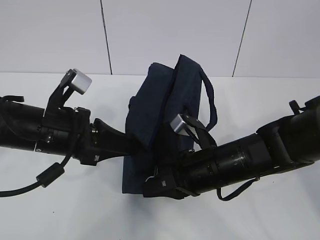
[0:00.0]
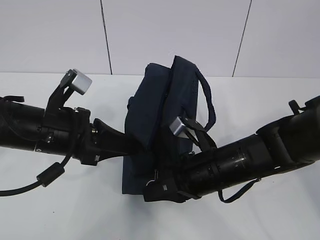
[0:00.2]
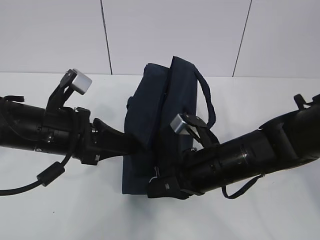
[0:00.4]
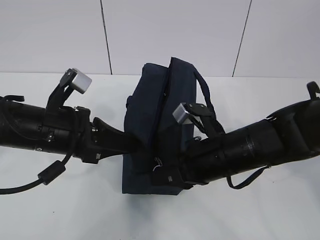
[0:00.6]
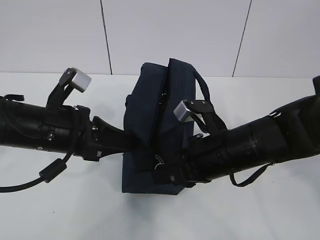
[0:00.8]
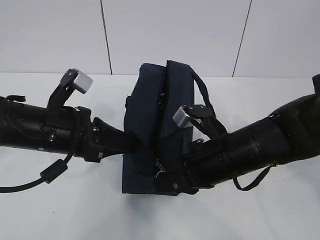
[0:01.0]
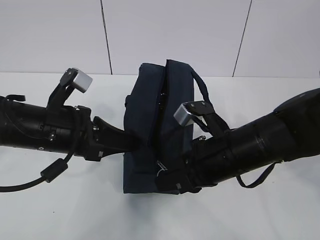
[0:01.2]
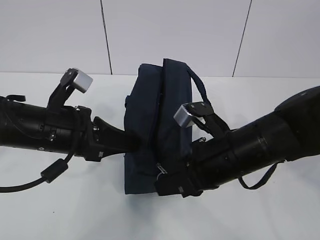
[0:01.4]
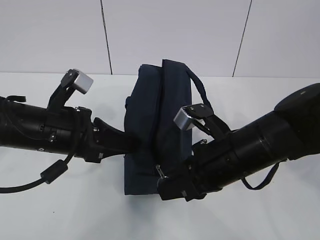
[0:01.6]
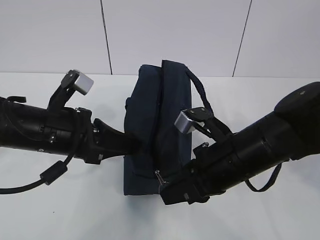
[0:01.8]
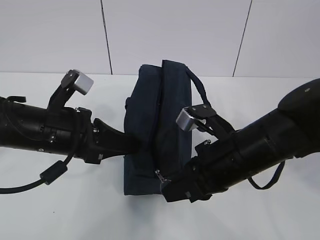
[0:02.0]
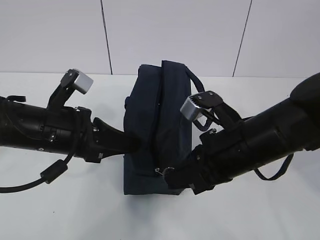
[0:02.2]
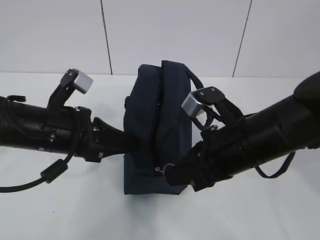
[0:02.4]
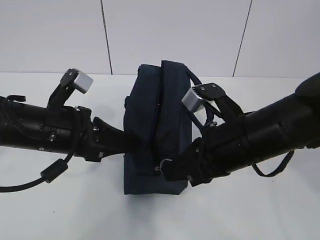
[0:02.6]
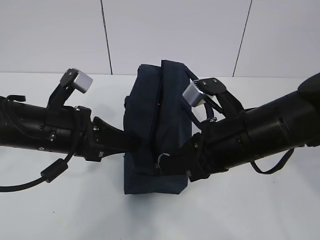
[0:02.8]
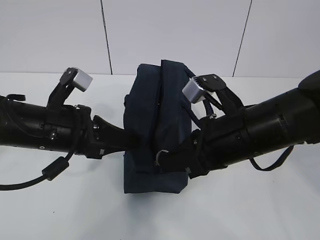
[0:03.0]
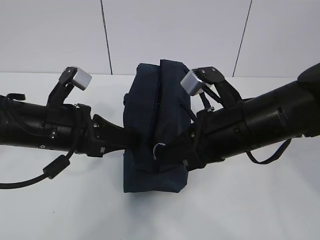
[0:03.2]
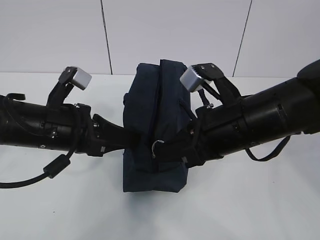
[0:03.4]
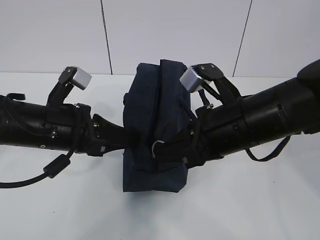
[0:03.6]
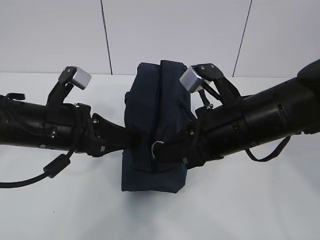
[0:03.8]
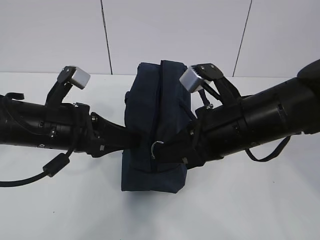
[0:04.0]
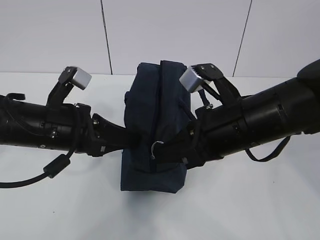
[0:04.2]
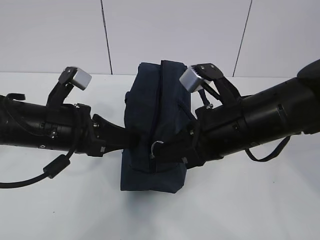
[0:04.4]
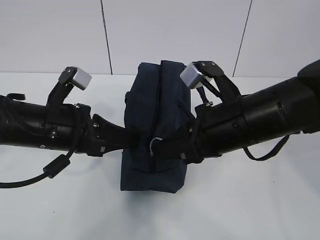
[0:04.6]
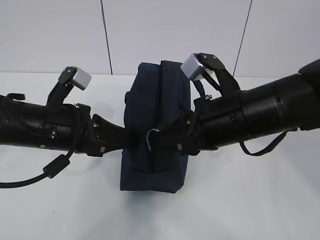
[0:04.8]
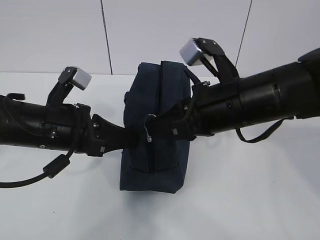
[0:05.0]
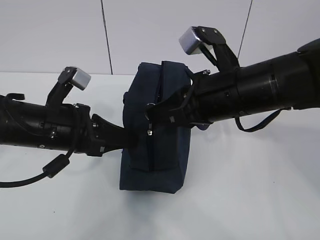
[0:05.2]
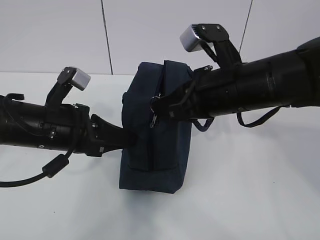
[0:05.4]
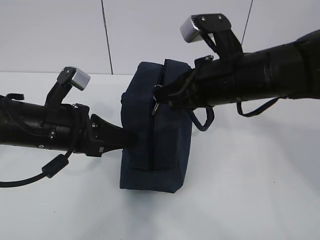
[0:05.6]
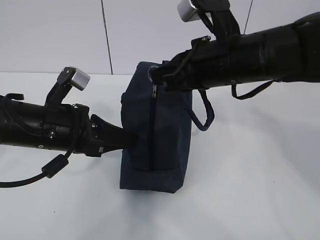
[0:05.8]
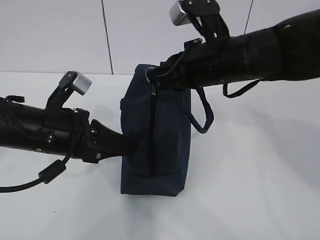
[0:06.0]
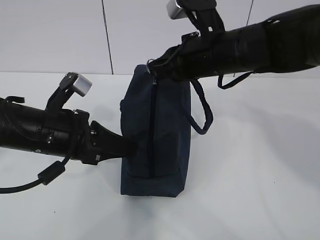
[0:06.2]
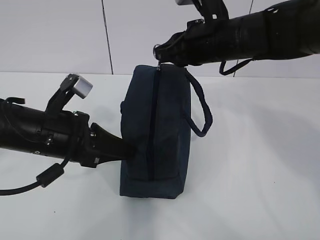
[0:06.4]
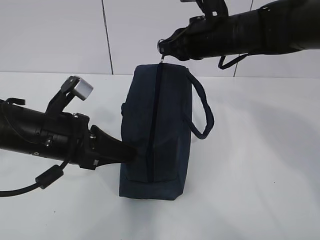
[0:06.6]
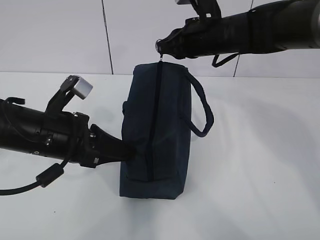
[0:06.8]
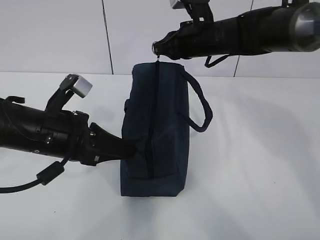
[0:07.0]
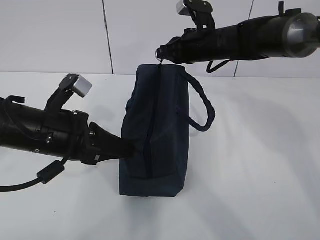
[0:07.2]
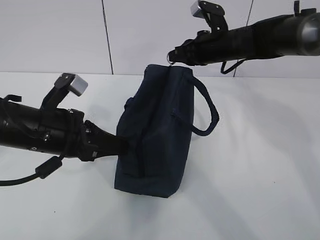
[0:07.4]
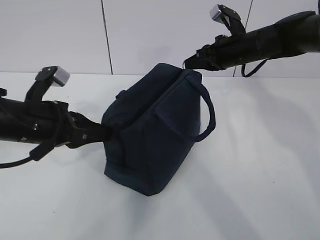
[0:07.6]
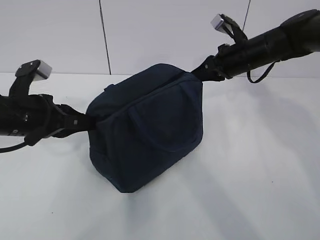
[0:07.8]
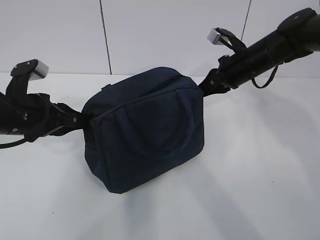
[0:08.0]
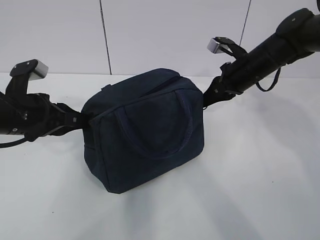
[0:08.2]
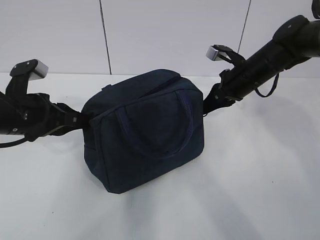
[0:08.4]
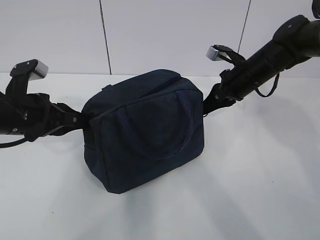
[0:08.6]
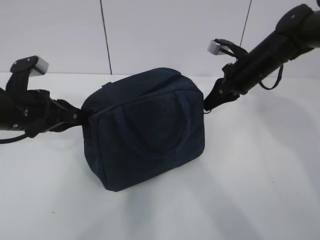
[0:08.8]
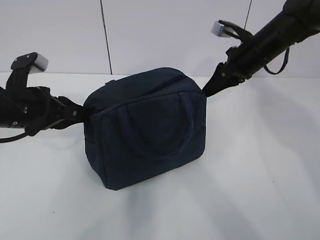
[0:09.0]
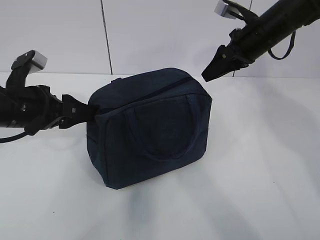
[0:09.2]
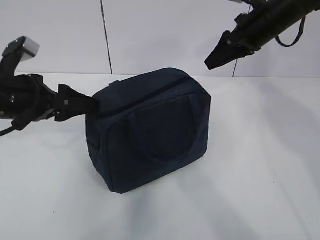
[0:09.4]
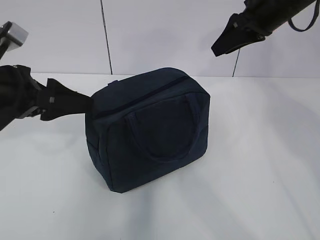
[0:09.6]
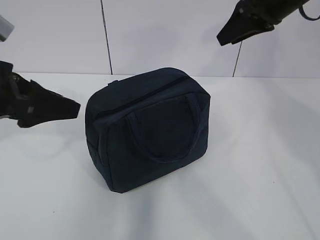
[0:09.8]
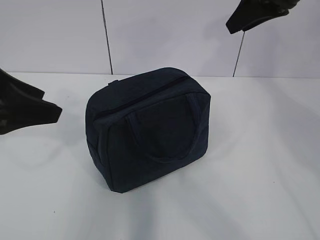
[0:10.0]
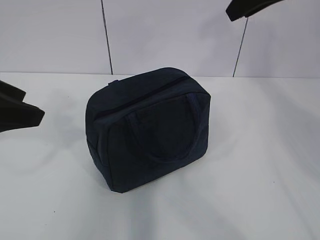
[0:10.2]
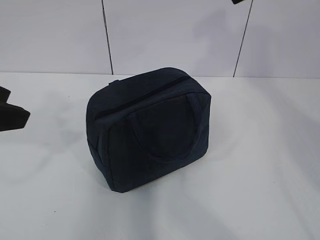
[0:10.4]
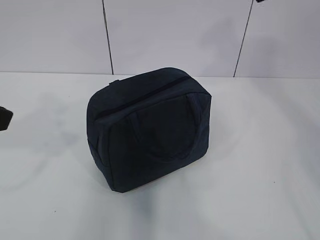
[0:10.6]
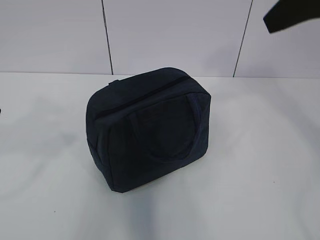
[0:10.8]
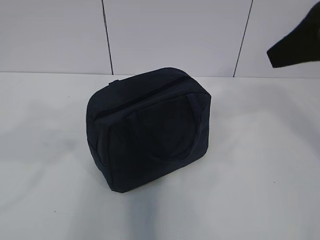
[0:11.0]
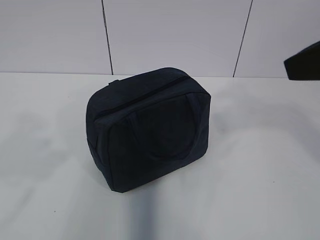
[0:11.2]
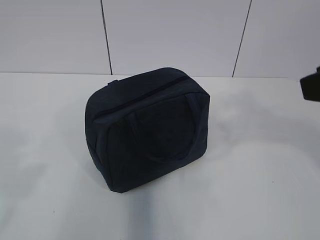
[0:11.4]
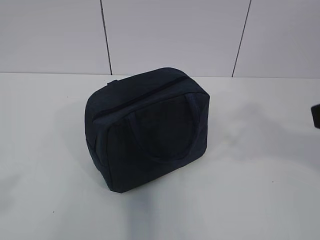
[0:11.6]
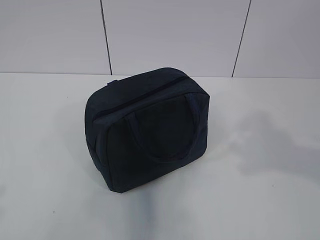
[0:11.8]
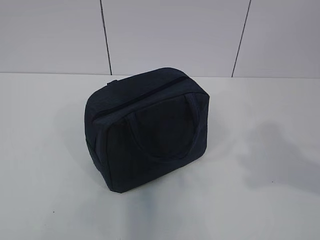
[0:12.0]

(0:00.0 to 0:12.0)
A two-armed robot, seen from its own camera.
Step, 0:00.0 - 0:09.8: zip up the zipper to close the bag.
0:00.0 - 0:01.6: The right gripper moves some 5 cm.
0:01.6 - 0:03.0: There are only small adjustments of the grippers.
0:03.0 - 0:04.4: The left gripper opens, then closes once more.
0:04.4 - 0:06.0: The right gripper shifts approximately 5 cm forward.
0:06.0 - 0:07.6: The right gripper moves forward and to the right, some 20 cm.
0:07.6 - 0:09.0: The right gripper opens its fingers.
0:09.0 - 0:10.4: The grippers both shift upward and backward by roughly 20 cm. The left gripper opens its fingers.
0:10.4 - 0:12.0: The right gripper heads backward and downward, covering roughly 25 cm. The left gripper moves backward, some 20 cm.

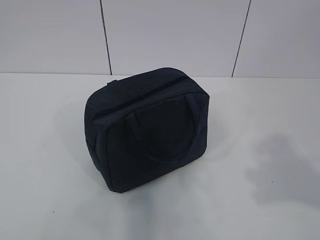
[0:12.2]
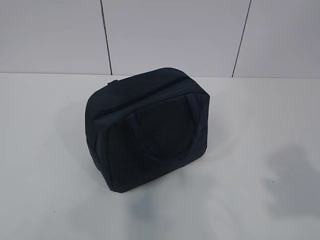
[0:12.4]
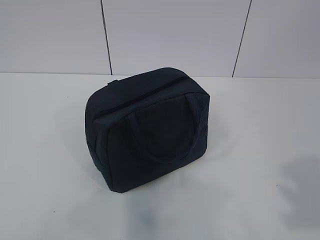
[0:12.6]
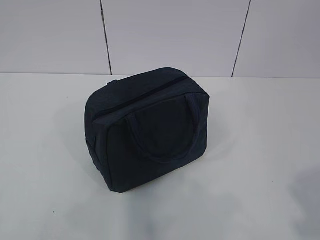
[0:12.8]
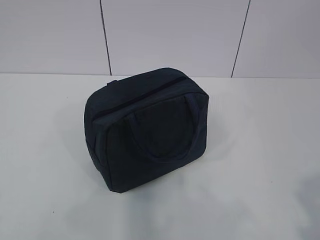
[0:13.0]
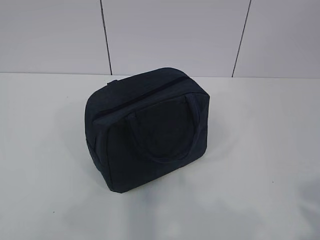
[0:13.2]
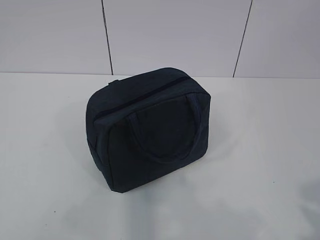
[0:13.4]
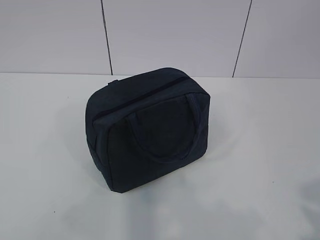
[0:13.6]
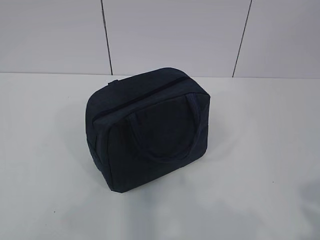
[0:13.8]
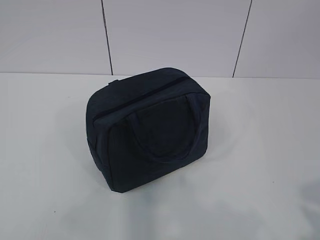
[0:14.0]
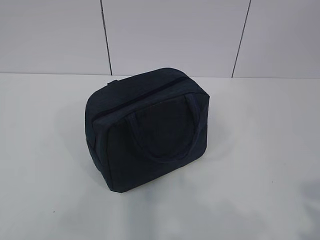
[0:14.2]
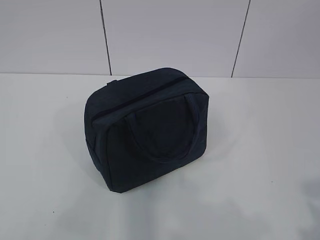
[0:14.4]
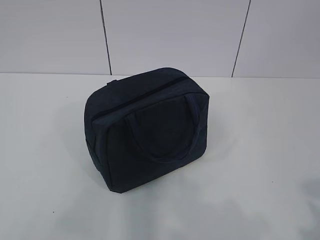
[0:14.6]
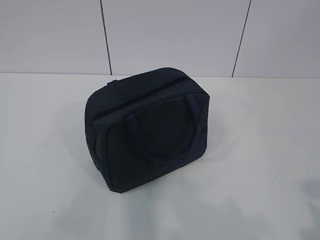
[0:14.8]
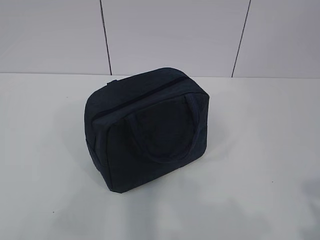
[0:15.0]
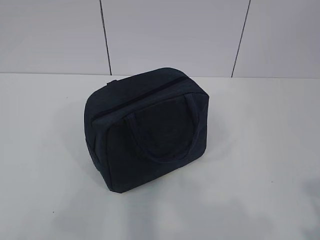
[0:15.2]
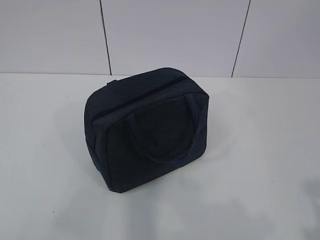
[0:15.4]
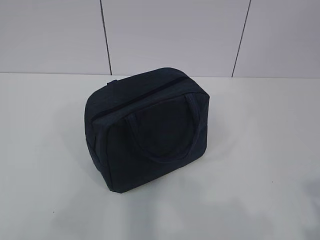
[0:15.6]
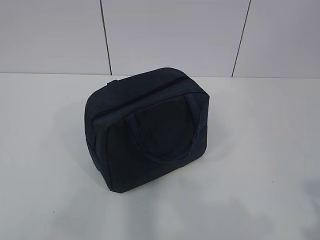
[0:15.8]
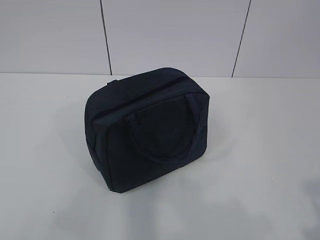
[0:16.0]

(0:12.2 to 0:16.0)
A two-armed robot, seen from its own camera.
0:12.2 - 0:13.4: The right gripper is displaced backward by some 10 cm.
0:13.4 - 0:14.8: The grippers stay close to where they were, moving slightly.
0:14.8 - 0:16.0: Neither gripper changes place.

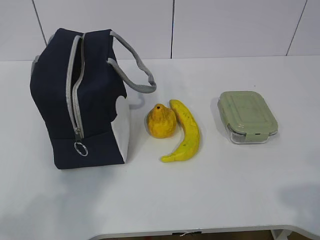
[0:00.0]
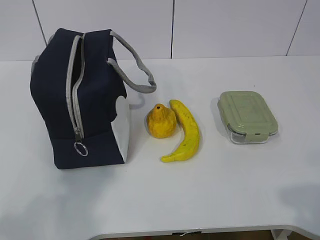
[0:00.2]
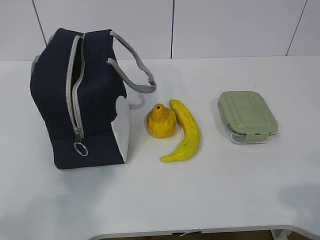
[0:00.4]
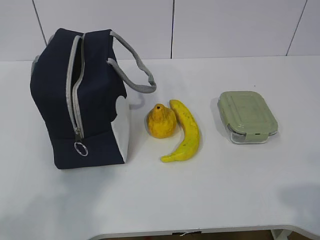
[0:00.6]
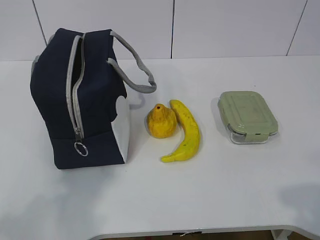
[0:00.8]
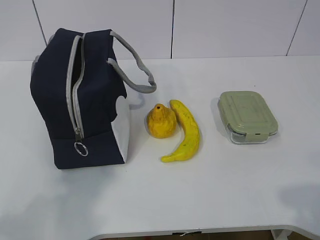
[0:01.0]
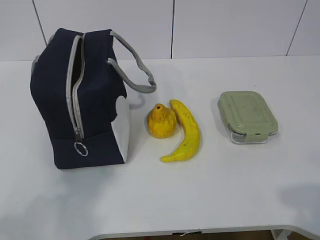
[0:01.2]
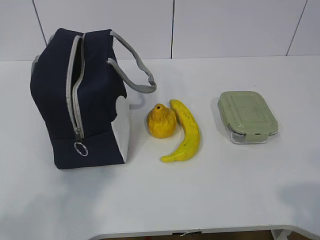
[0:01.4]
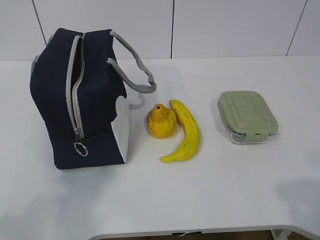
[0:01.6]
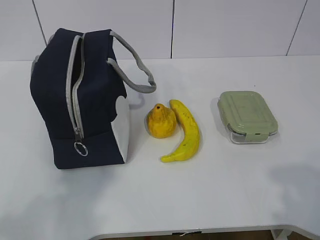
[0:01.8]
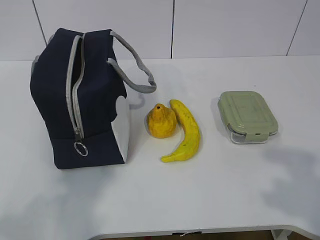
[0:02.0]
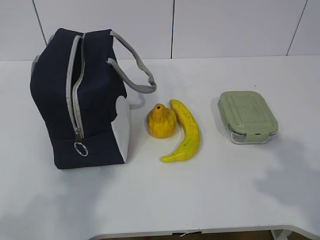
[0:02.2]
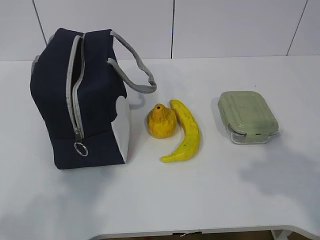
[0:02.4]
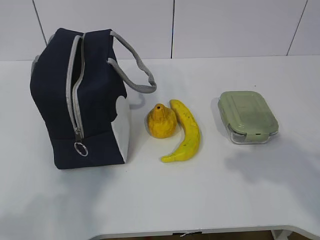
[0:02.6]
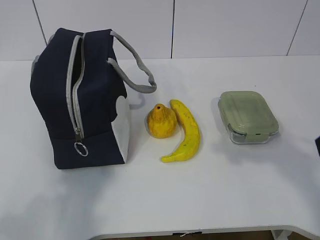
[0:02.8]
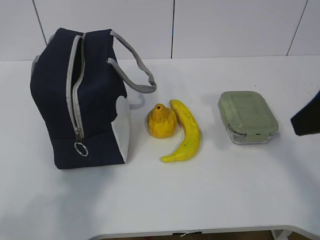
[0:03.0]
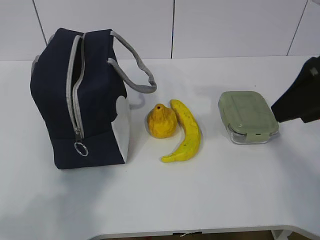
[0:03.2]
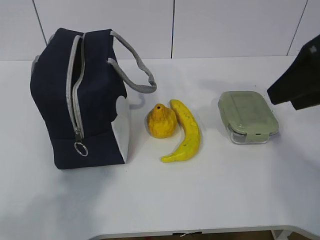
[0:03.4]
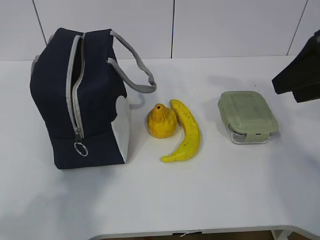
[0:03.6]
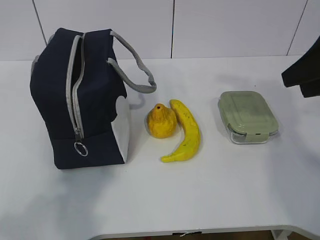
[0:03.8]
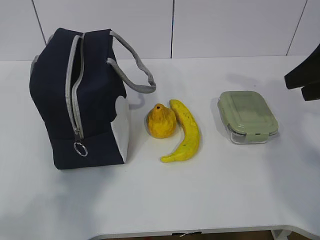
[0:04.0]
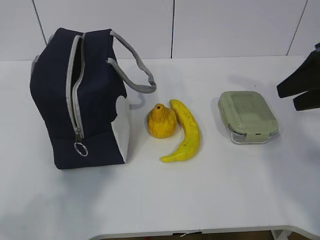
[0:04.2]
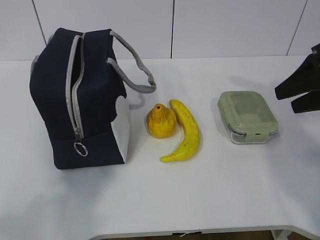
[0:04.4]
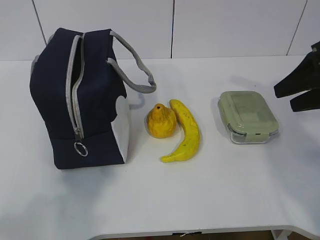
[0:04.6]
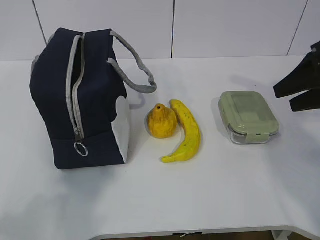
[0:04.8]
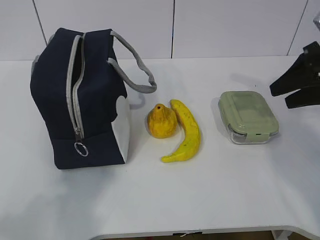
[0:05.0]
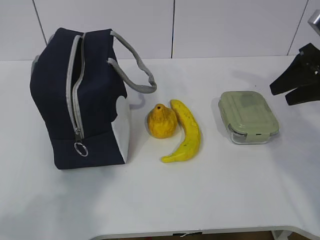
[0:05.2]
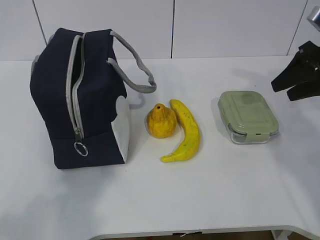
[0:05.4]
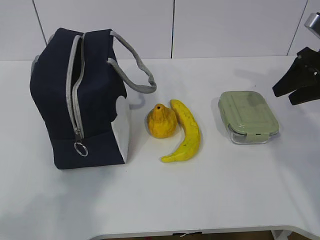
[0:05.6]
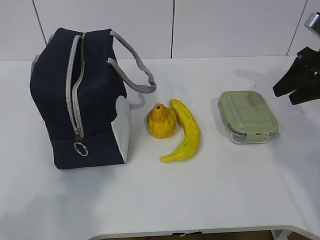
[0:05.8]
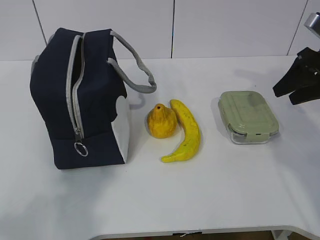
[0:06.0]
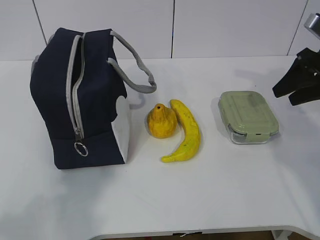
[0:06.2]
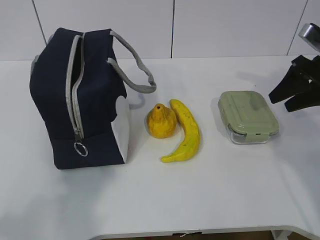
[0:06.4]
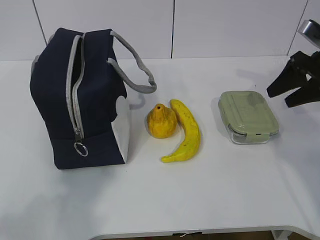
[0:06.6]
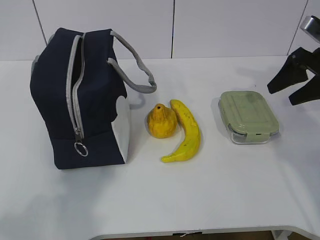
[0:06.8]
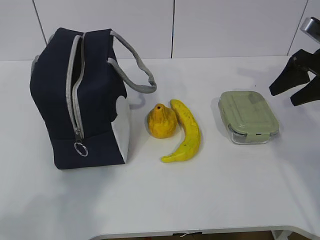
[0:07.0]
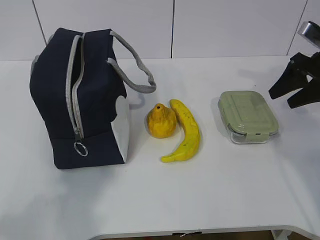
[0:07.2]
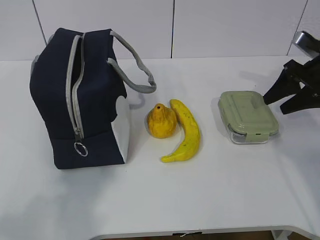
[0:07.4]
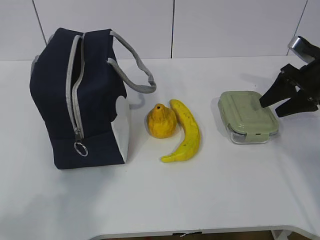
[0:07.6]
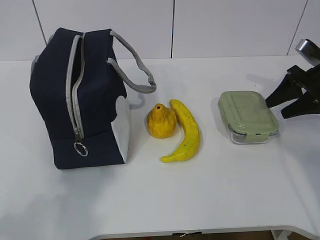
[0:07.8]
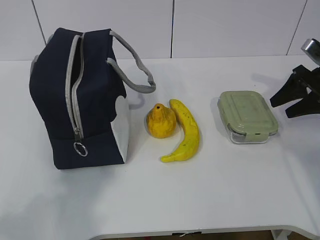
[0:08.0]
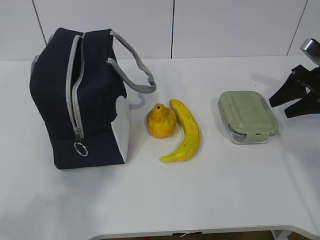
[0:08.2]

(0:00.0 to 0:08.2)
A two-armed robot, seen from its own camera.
0:01.6 - 0:03.2: The right gripper travels forward by about 25 cm.
0:03.2 - 0:05.0: The right gripper shifts some 15 cm forward, to the right and downward.
0:05.0 - 0:06.6: The right gripper travels forward by about 5 cm.
0:06.6 - 0:08.2: The right gripper ends up about 5 cm from where it was.
